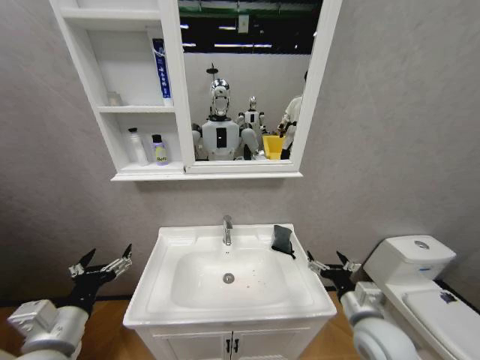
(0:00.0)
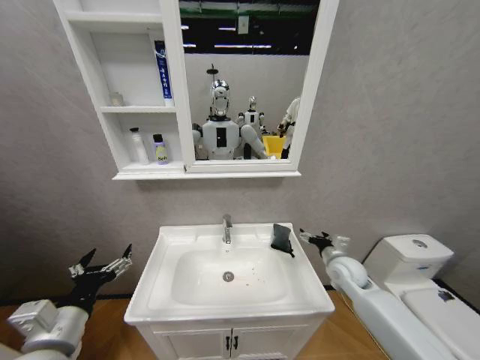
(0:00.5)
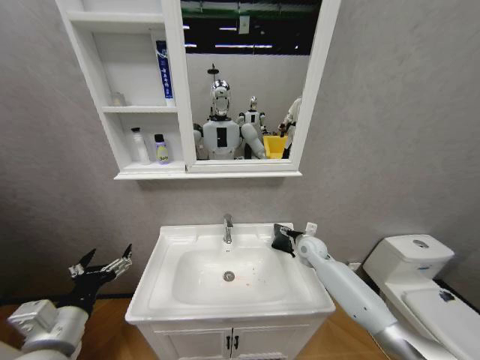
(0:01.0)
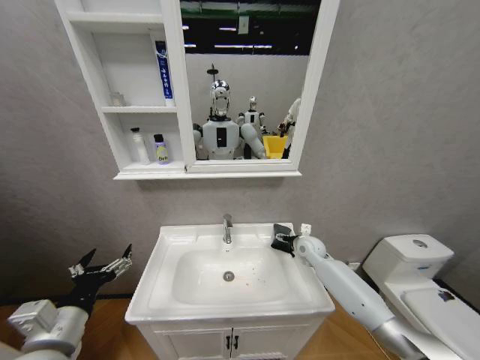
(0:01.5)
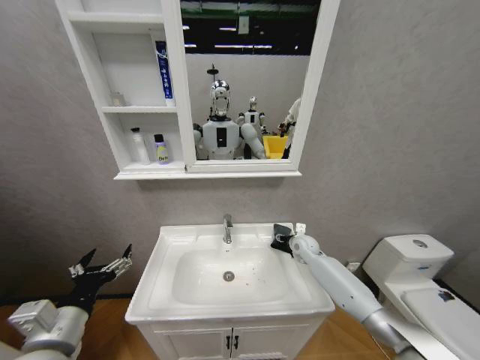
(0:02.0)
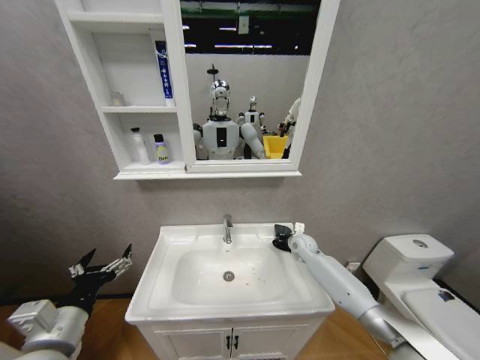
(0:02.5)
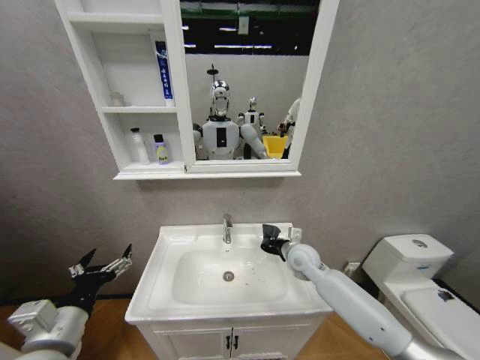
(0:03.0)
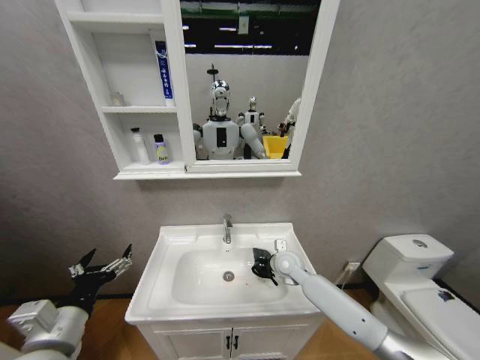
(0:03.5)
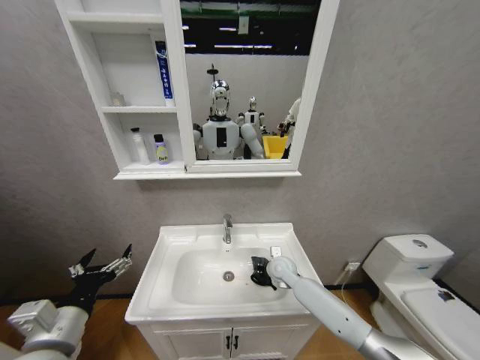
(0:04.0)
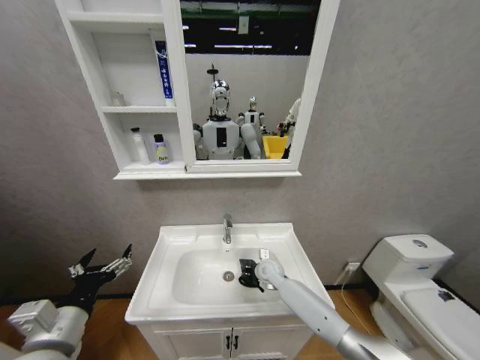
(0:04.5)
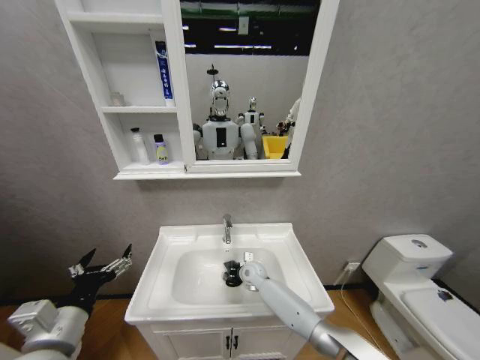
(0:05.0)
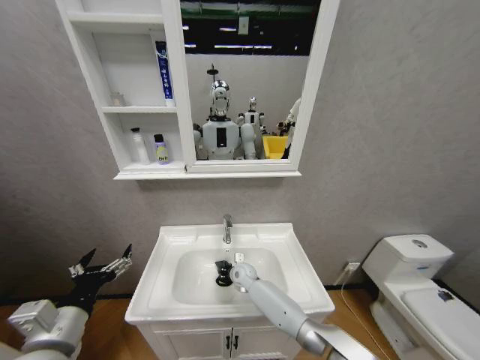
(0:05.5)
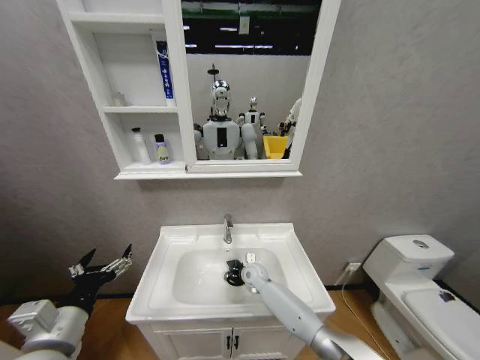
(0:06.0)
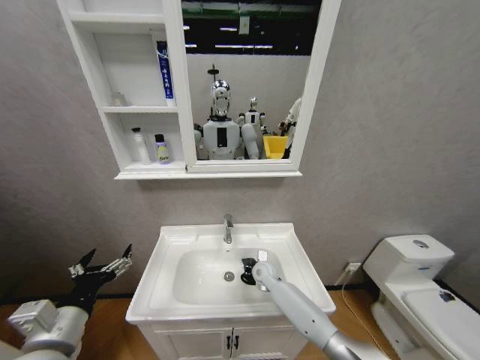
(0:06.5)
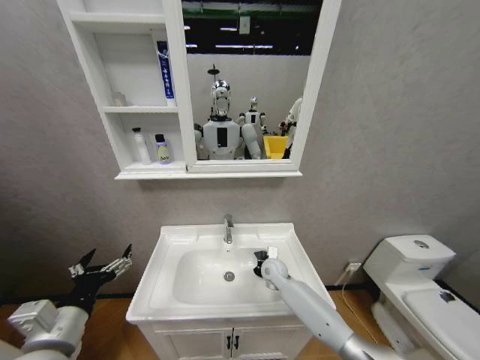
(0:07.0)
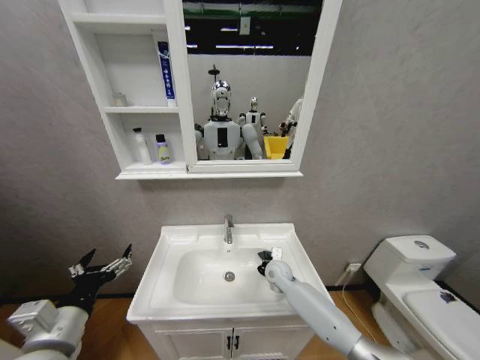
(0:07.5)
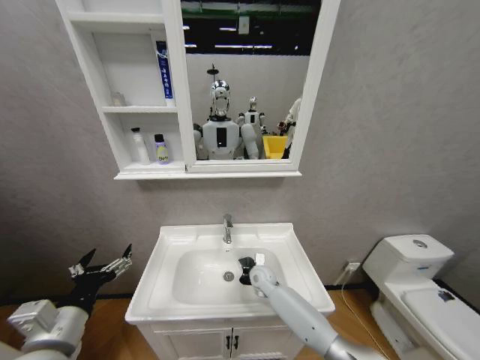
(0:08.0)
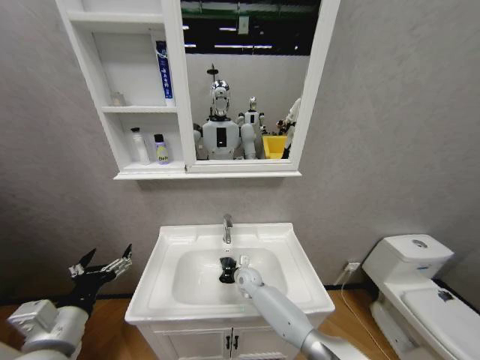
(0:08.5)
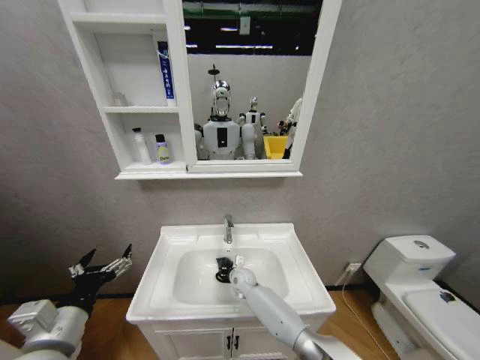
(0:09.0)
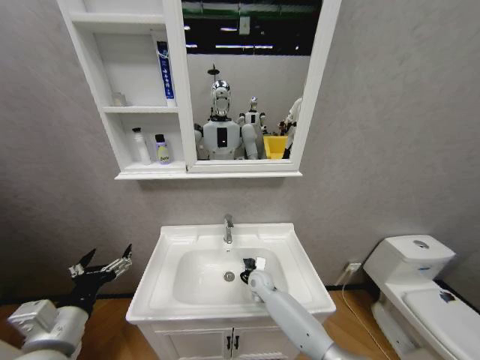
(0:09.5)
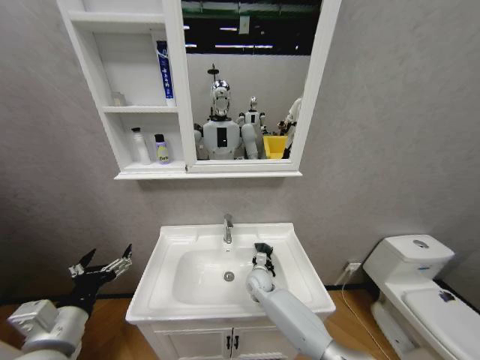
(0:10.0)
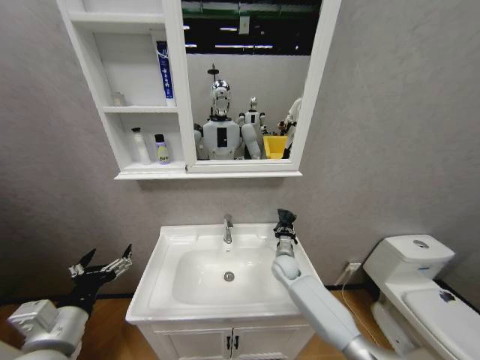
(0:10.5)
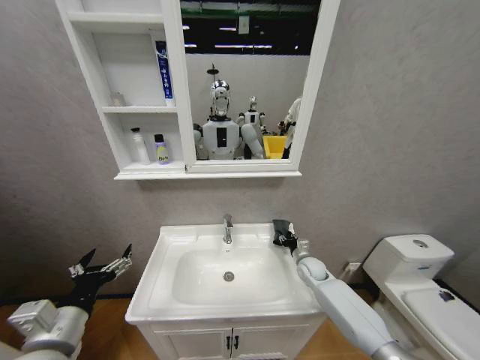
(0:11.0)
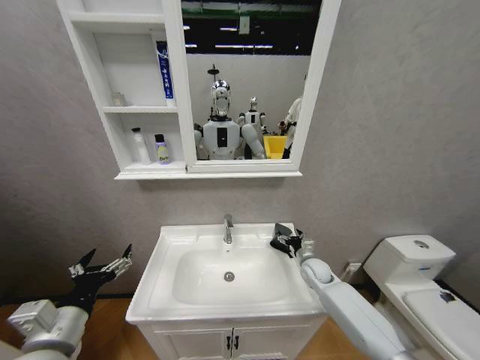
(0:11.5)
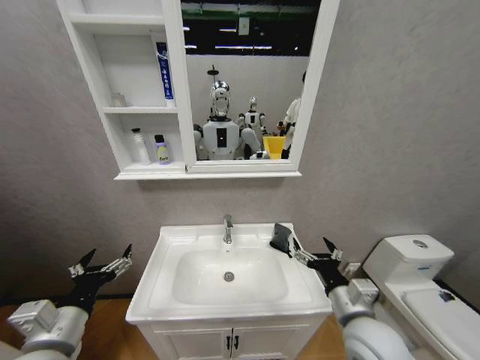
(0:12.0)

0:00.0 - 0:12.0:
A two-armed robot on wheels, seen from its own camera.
Task of the whole recording: Move facial cleanser and shampoo from washbasin to cabinet, then wipe washbasin with towel.
0:00.0 - 0:02.0: The right gripper goes some 30 cm forward.
0:02.0 - 0:04.0: The right gripper moves to the left and backward, some 10 cm, and closes.
0:04.0 - 0:06.0: The right gripper moves to the left and downward, approximately 10 cm.
0:10.0 - 0:12.0: The right gripper heads upward, backward and to the right, covering about 30 cm, and opens.

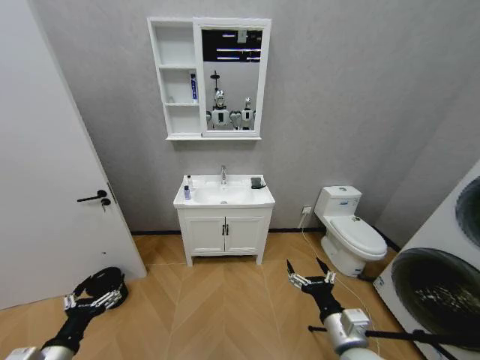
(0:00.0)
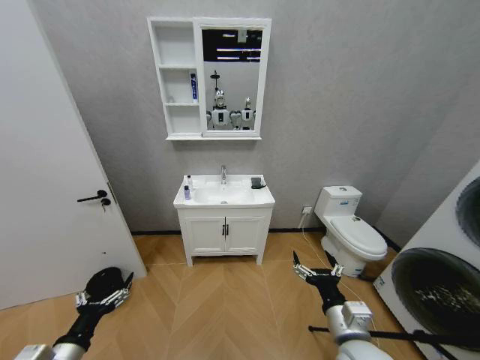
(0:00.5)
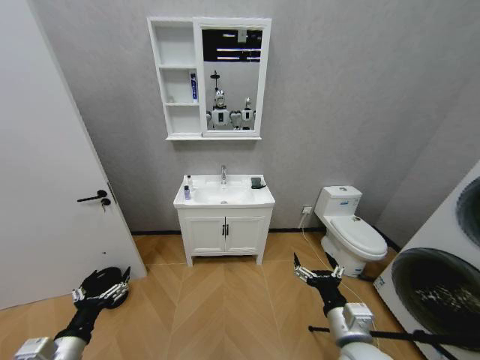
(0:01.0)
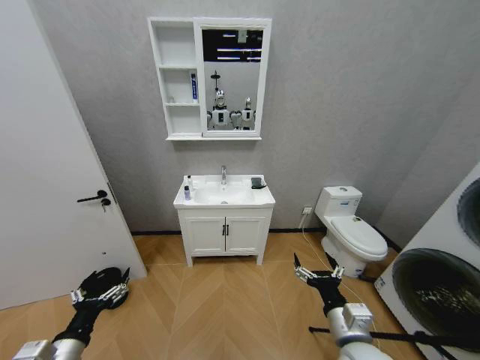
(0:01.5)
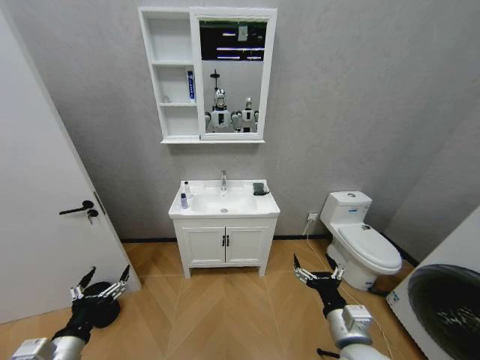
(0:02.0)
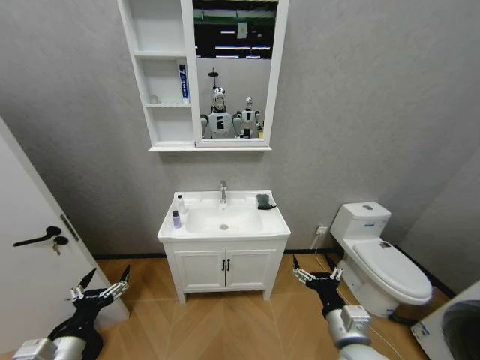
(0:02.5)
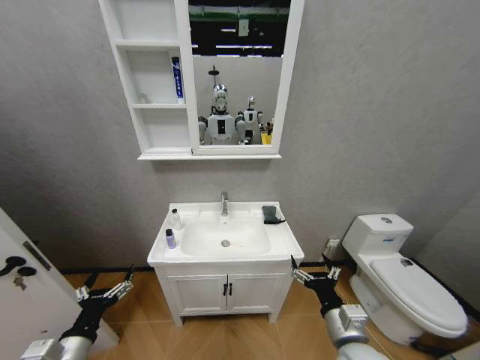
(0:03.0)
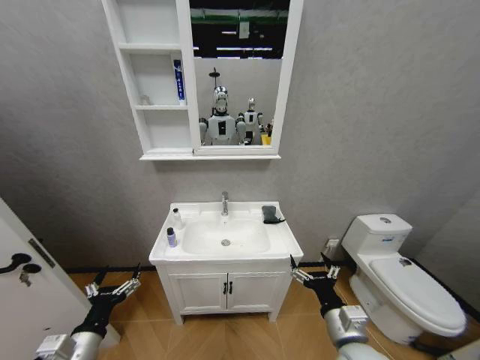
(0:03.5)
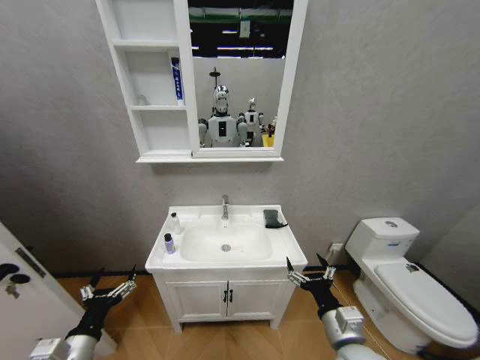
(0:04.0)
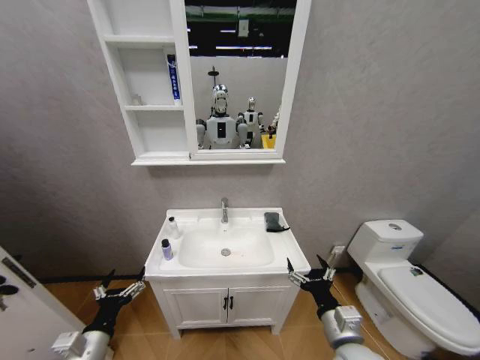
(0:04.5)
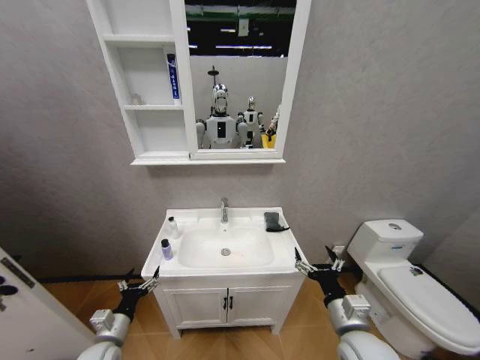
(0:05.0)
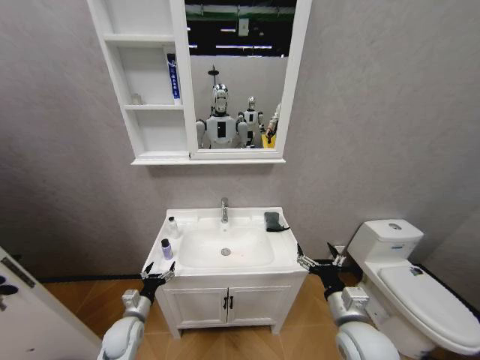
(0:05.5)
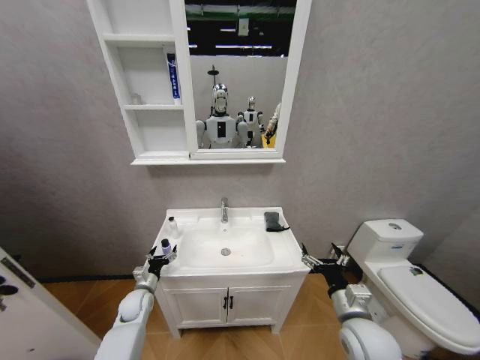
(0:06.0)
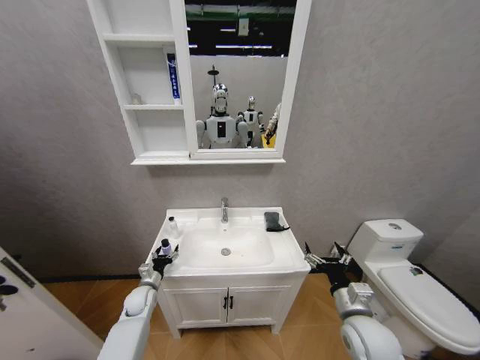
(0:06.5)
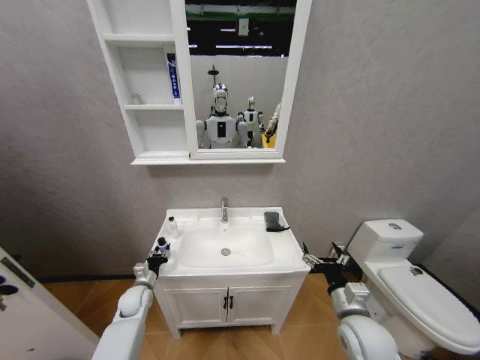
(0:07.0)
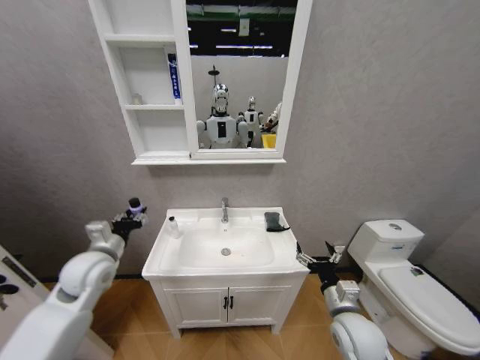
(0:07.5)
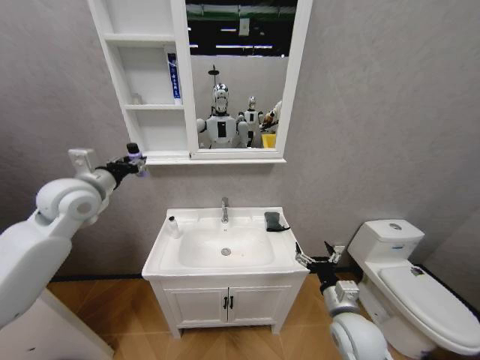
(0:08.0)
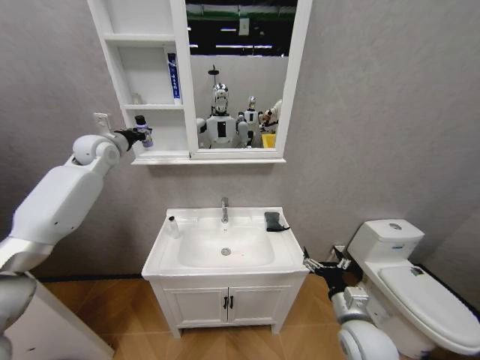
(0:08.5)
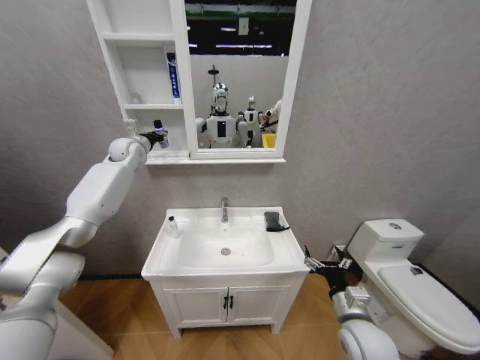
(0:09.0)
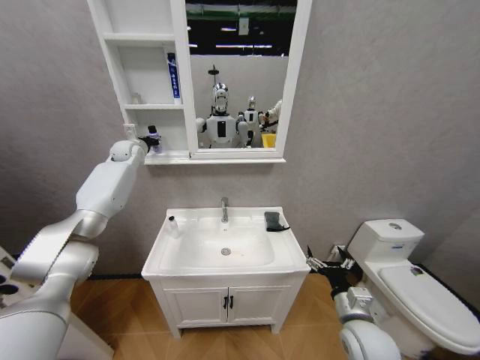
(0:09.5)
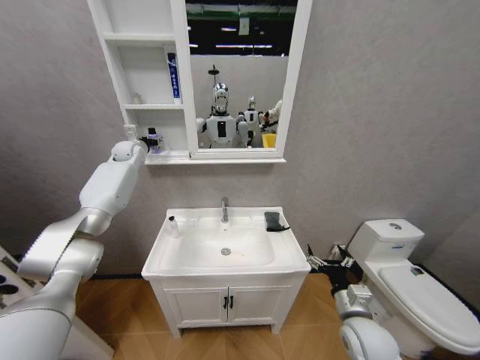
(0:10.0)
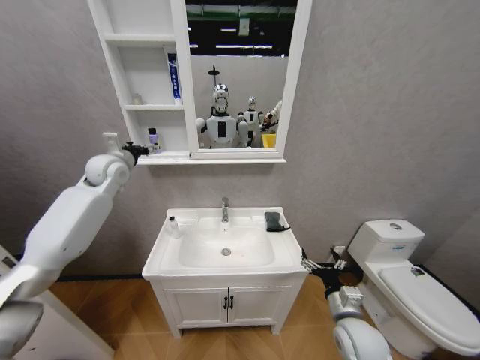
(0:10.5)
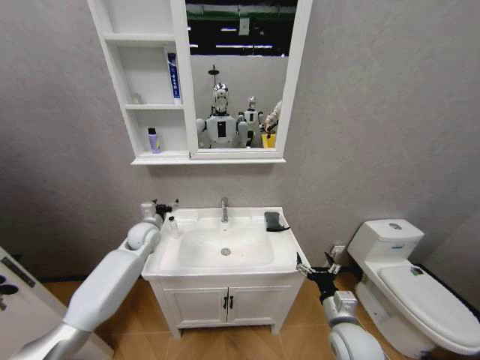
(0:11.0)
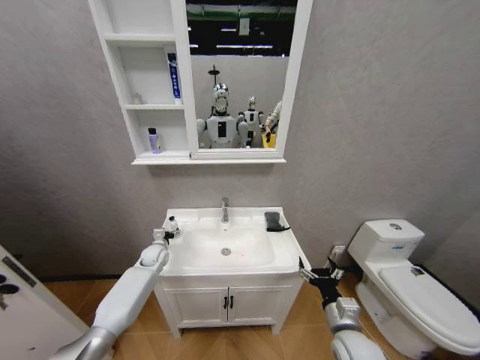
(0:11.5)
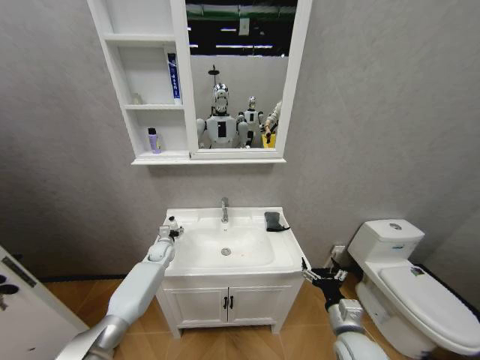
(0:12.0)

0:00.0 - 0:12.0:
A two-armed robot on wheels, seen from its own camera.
Task of the whole recording: Move facial cleanser and shampoo from washbasin to cabinet, then wipe washbasin with towel.
0:04.0 - 0:06.0: The left gripper travels forward and downward by some 25 cm. Meanwhile the right gripper moves about 5 cm.
0:06.0 - 0:08.0: The left gripper is displaced upward by roughly 40 cm, and closes.
0:08.0 - 0:10.0: The left gripper shifts some 25 cm forward, and opens.
0:10.0 - 0:12.0: The left gripper heads downward, covering some 35 cm.

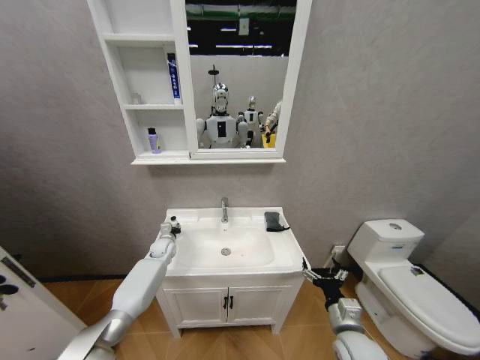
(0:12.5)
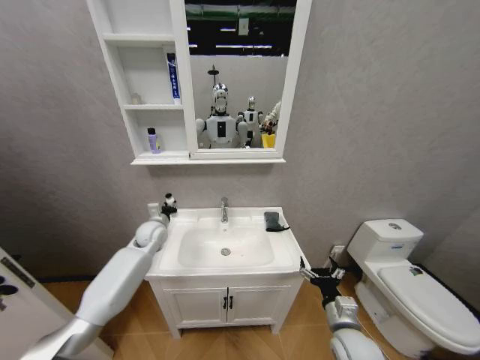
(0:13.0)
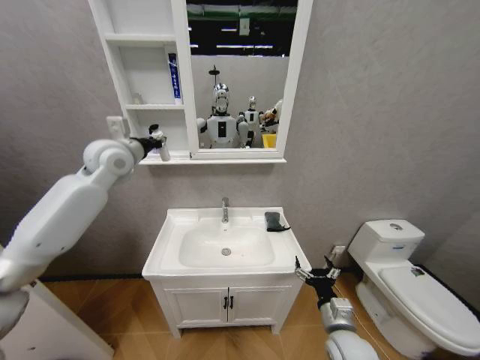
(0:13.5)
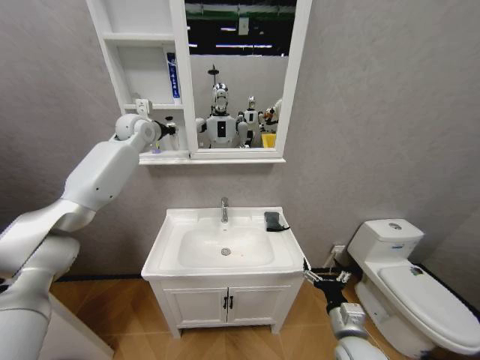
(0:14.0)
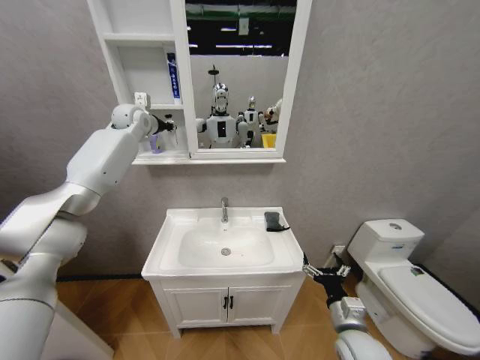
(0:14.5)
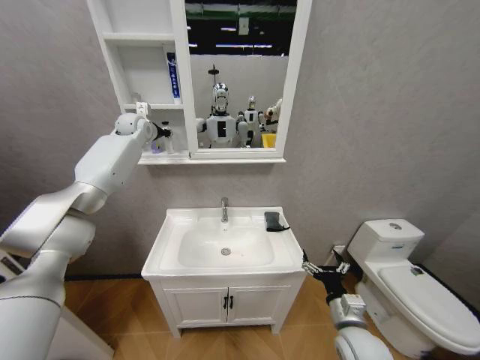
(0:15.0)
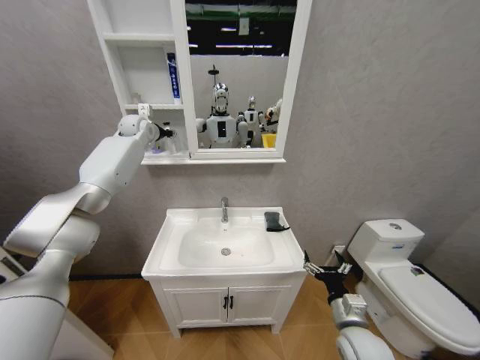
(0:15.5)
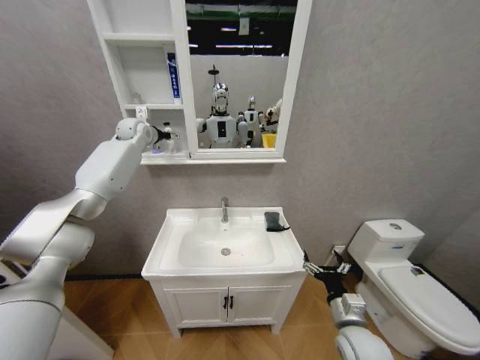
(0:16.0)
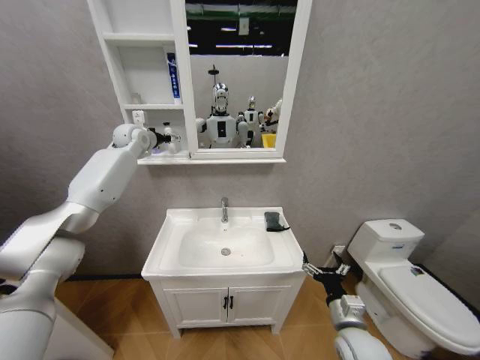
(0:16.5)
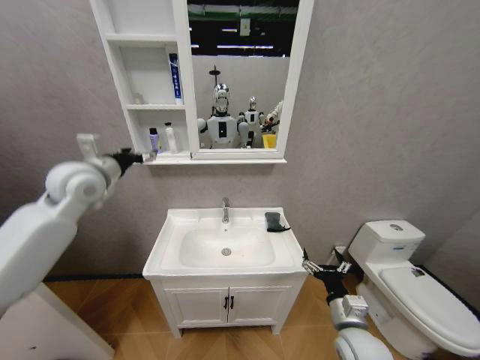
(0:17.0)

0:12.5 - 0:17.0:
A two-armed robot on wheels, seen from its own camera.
Task of the whole recording: Move facial cleanser and shampoo from washbasin to cabinet, then wipe washbasin with towel.
0:12.5 - 0:14.5: The left gripper heads upward, covering some 50 cm.
0:14.5 - 0:17.0: The left gripper travels backward by about 20 cm, and opens its fingers.
